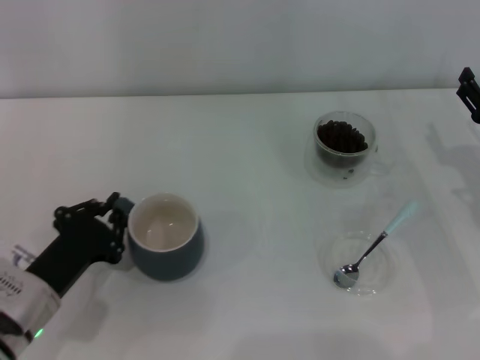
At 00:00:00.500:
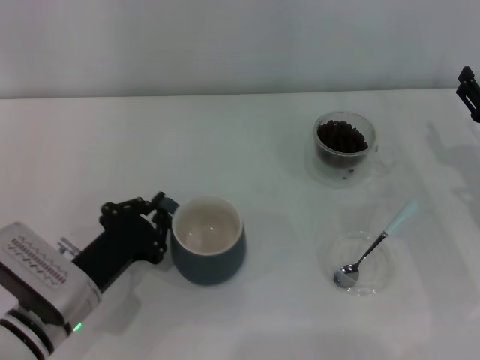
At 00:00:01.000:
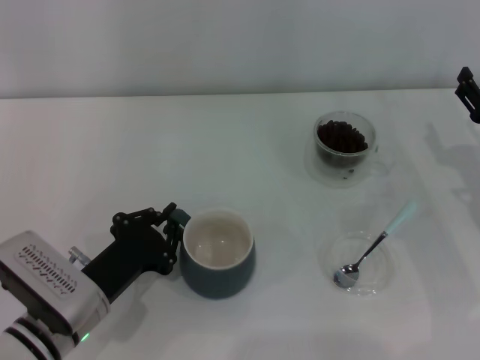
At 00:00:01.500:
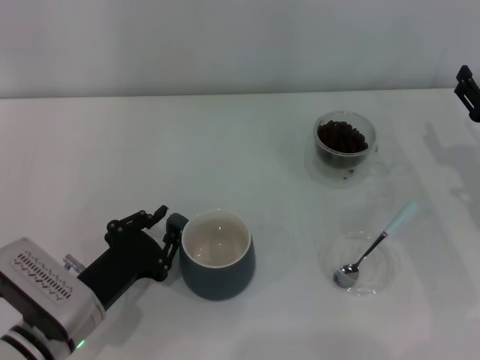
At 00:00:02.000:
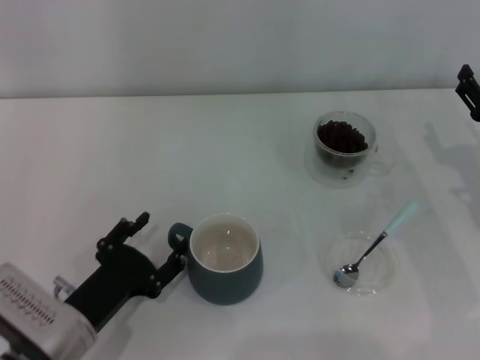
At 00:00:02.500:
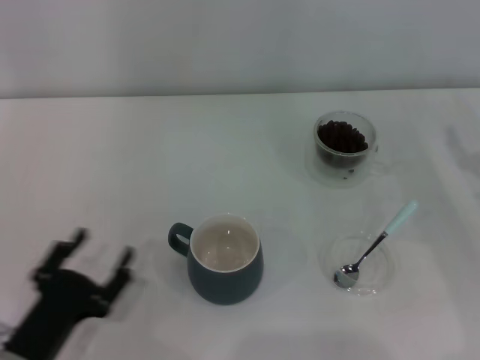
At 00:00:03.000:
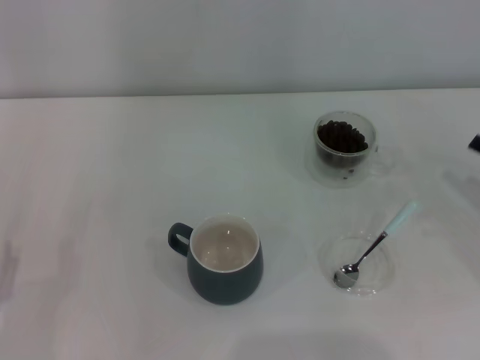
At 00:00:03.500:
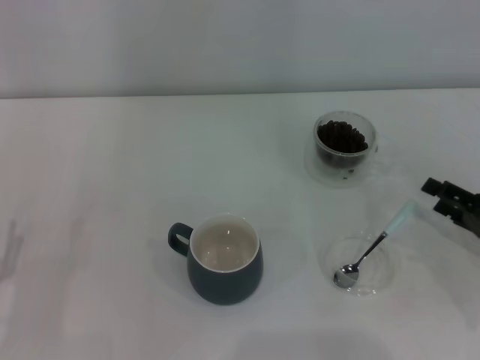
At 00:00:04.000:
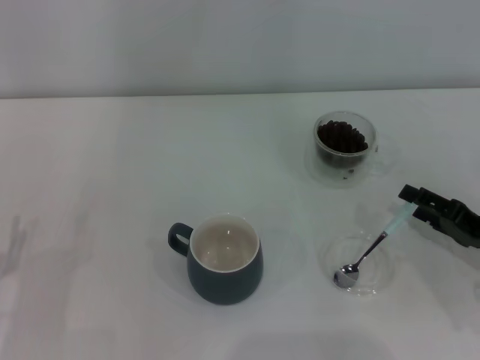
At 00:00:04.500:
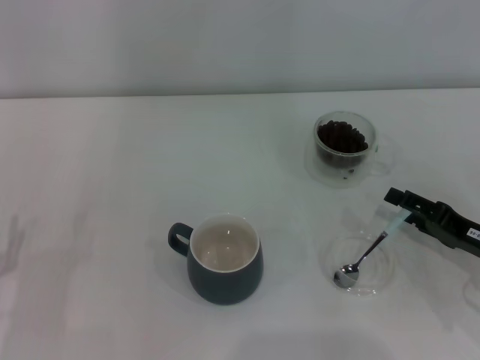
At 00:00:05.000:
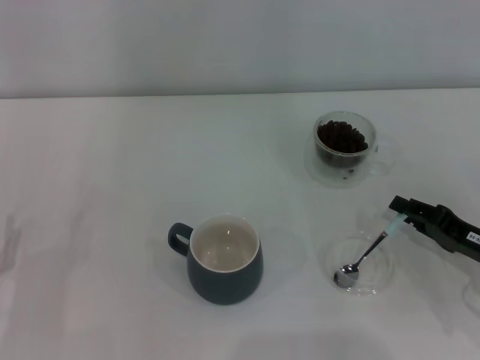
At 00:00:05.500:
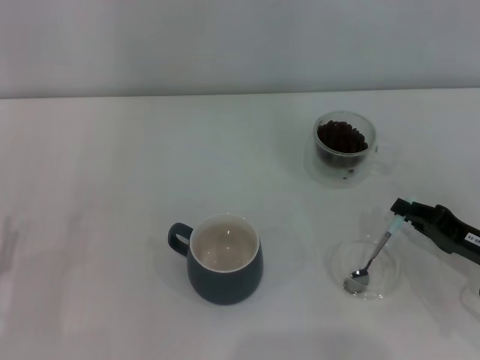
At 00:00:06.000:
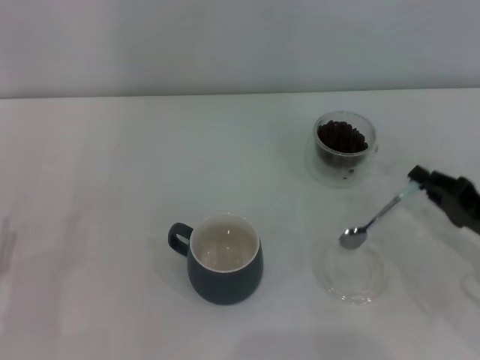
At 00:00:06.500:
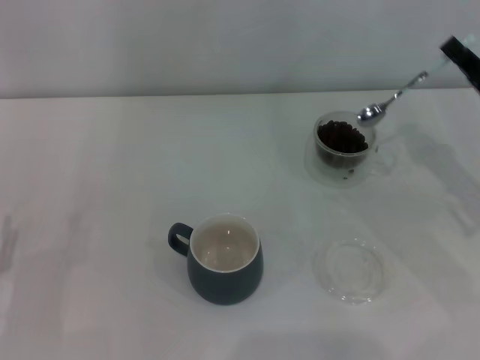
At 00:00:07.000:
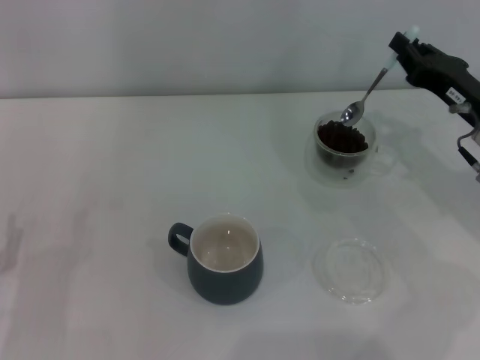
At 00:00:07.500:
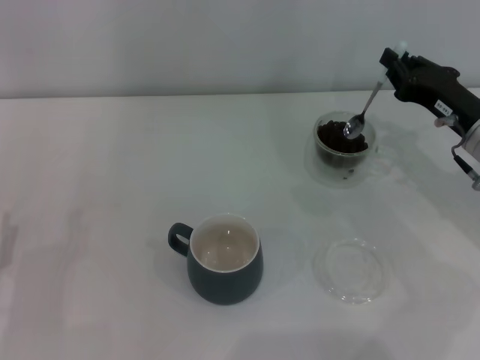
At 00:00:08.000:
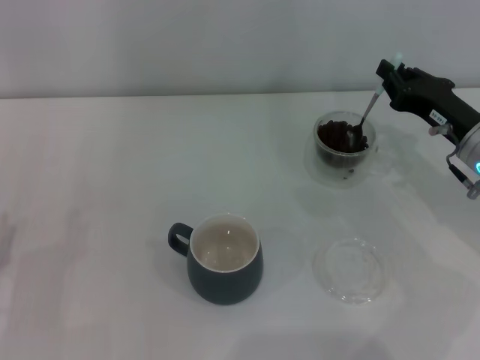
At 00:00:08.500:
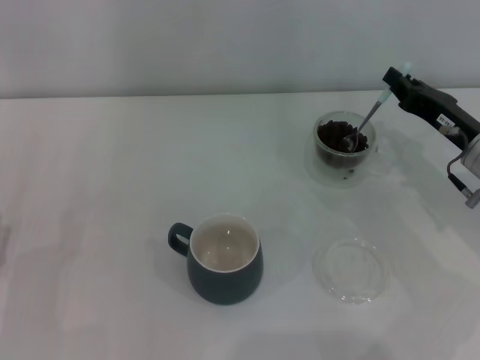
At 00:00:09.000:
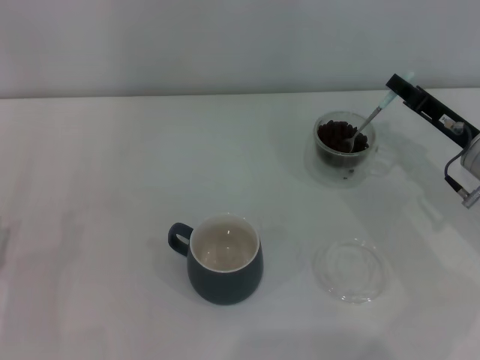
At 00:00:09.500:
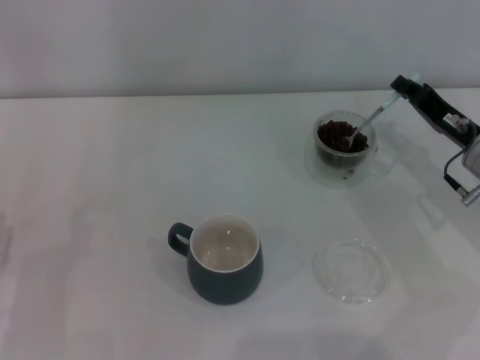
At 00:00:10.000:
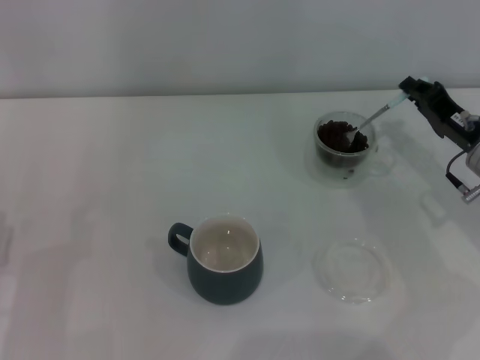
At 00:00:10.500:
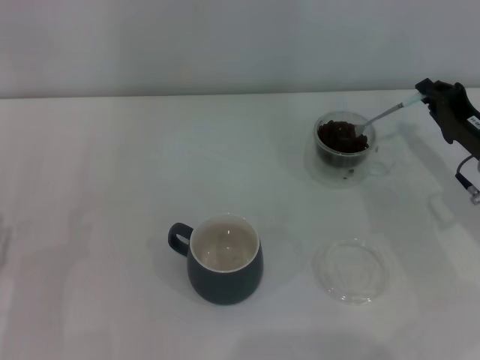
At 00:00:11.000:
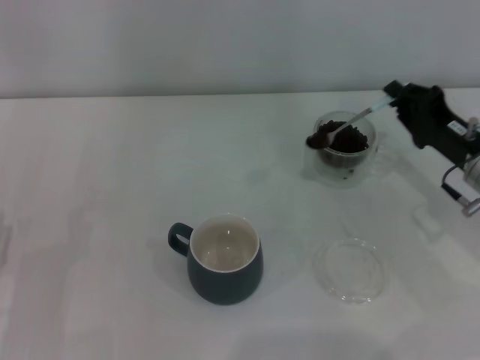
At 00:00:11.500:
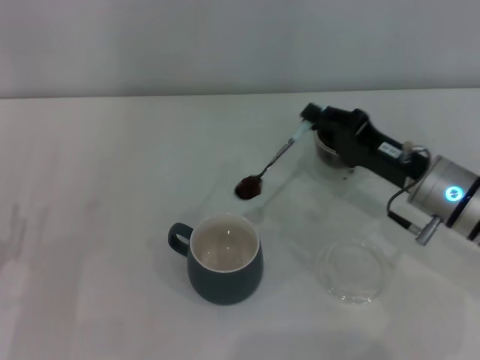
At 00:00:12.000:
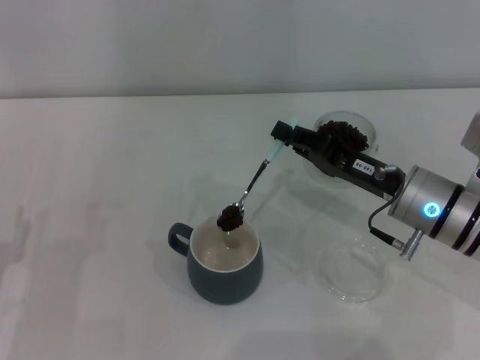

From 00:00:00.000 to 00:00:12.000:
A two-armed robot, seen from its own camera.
Task of the whole recording: Use a blue spoon to take out the coffee beans from the glass and pour them into the gray cup.
Step, from 00:00:00.000 to 00:00:02.000: Move the cup to the center of view with the left gripper.
Step, from 00:00:02.500 to 00:00:05.500: Pick up the spoon with the right gripper.
From 00:00:00.000 to 00:00:02.000: The left gripper opens.
From 00:00:02.000 to 00:00:04.000: The right gripper shifts some 5 cm backward, and moves roughly 10 cm to the right and comes back. The left gripper heads to the left, covering approximately 10 cm.
From 00:00:04.000 to 00:00:06.000: The right gripper closes its fingers.
From 00:00:06.000 to 00:00:08.000: The right gripper moves forward and upward, some 10 cm.
From 00:00:10.000 to 00:00:12.000: The right gripper heads to the left, covering about 10 cm.

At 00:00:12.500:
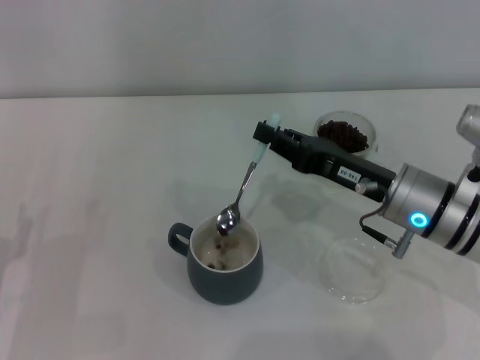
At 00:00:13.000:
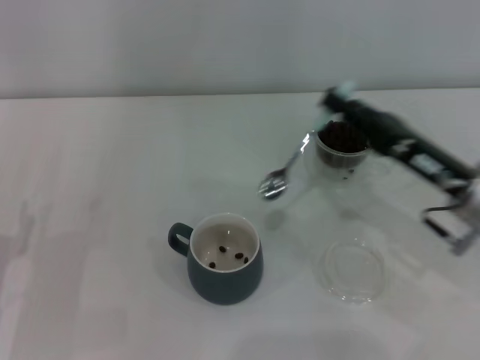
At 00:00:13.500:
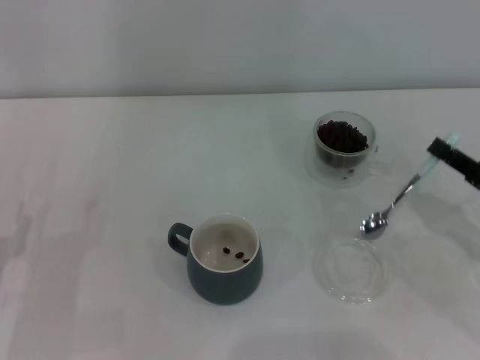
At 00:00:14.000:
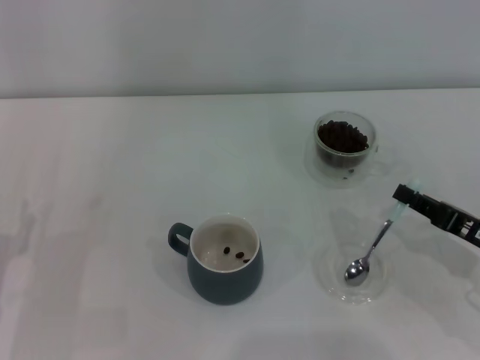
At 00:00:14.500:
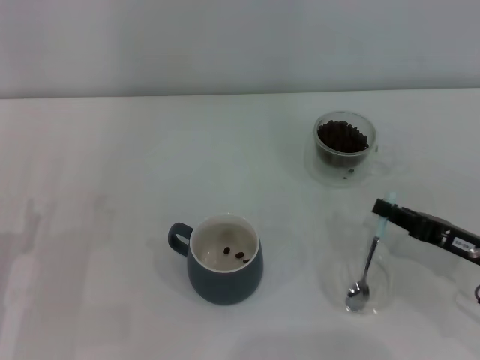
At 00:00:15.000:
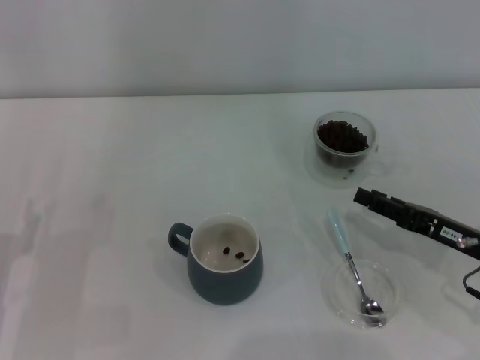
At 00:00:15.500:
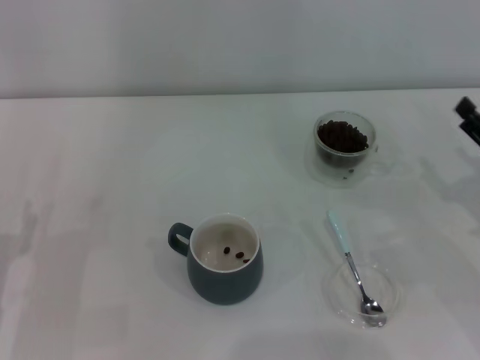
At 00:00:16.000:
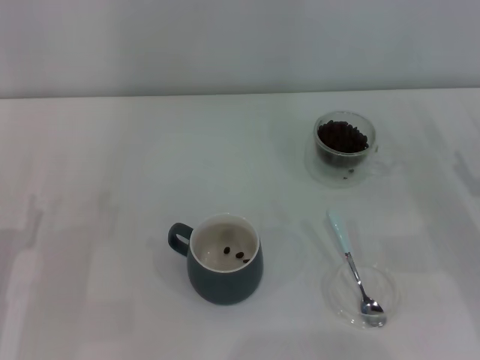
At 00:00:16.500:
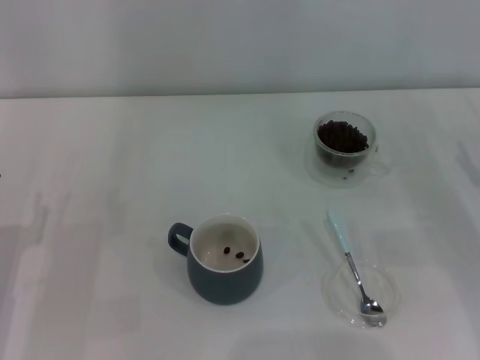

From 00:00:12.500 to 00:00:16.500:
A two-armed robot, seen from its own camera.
Task of the whole recording: Use a blue spoon to take out the coffee beans from the glass and pour them into the gray cup.
Step, from 00:00:13.000 to 00:00:14.500: Place the spoon back in its original place with the right gripper.
From 00:00:12.500 to 00:00:14.500: The right gripper is displaced to the right, backward and downward by roughly 15 cm.
From 00:00:14.500 to 00:00:16.500: The right gripper travels to the right by approximately 5 cm, and opens its fingers.
